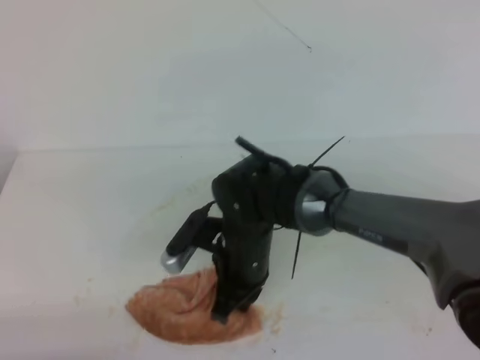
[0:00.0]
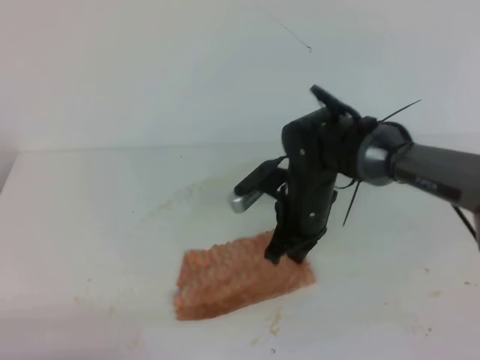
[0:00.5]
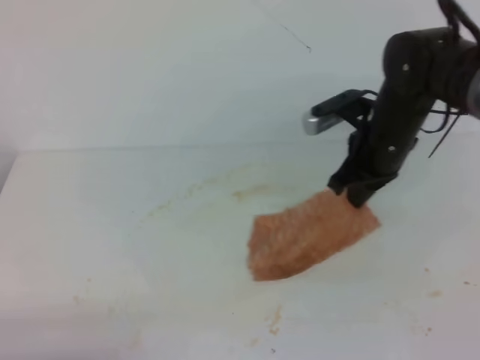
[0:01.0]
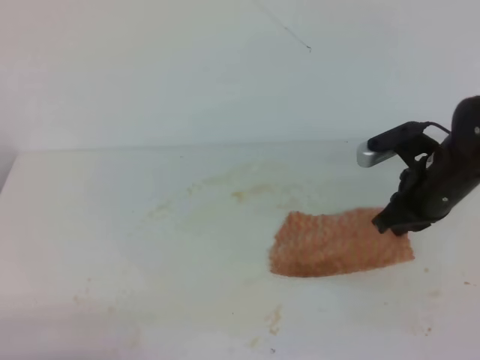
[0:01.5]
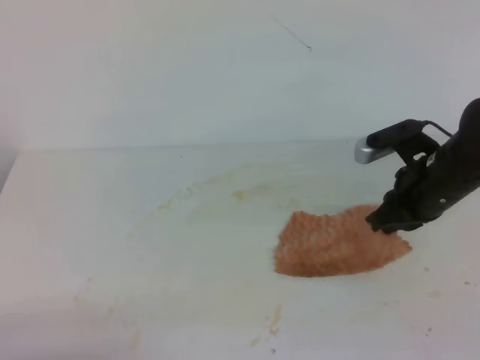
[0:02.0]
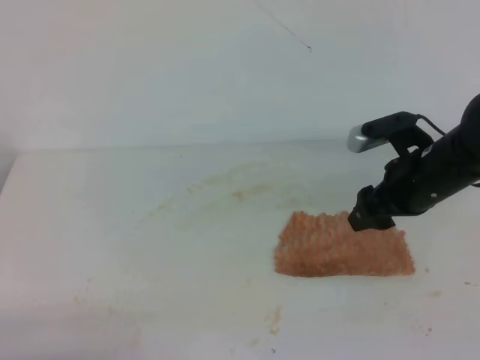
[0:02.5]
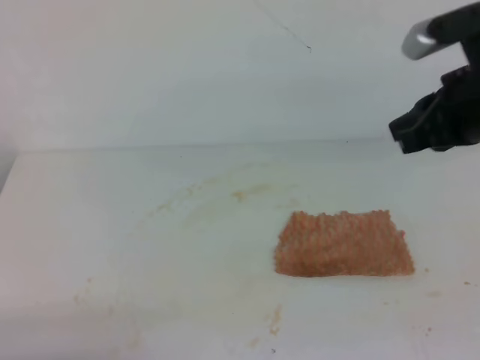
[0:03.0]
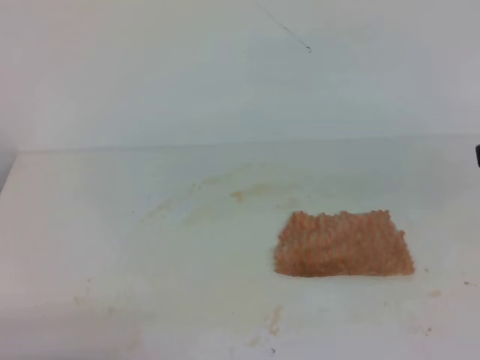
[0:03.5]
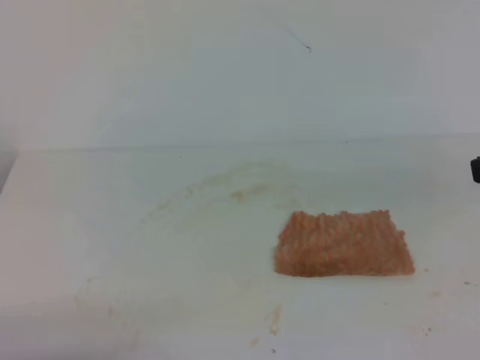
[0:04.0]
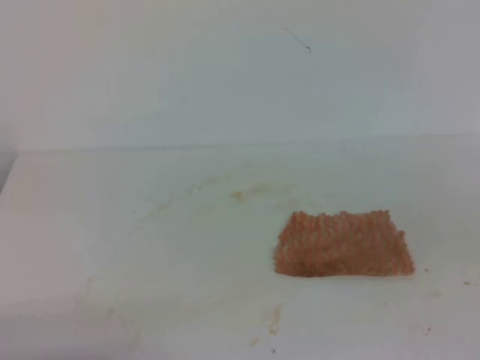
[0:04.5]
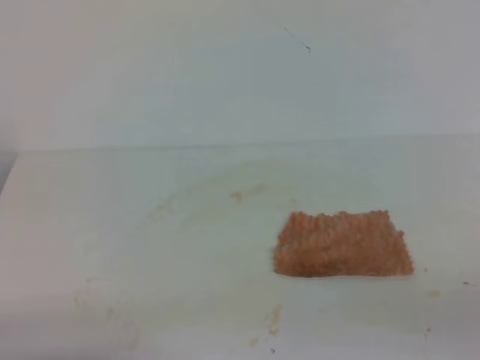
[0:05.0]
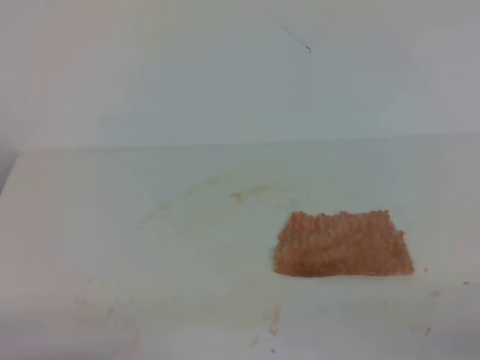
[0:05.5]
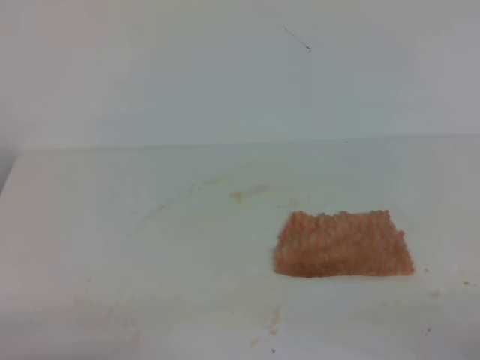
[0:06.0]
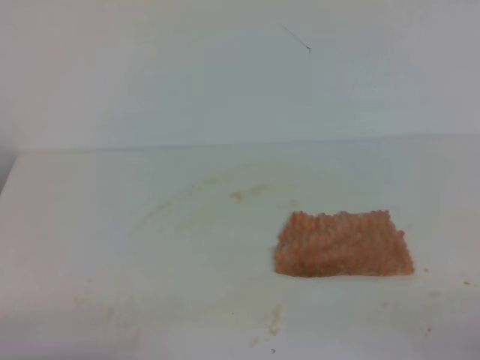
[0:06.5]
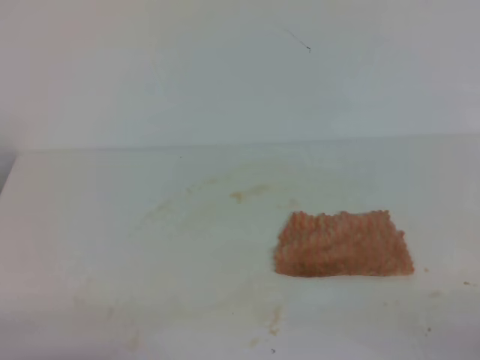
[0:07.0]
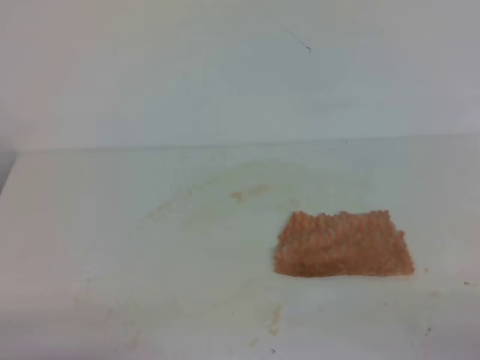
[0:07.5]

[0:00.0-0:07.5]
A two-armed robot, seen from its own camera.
0:00.0 to 0:02.0: The right gripper goes approximately 20 cm to the right.
0:02.0 to 0:04.0: The right gripper travels backward and upward by approximately 20 cm, and opens and closes again.
